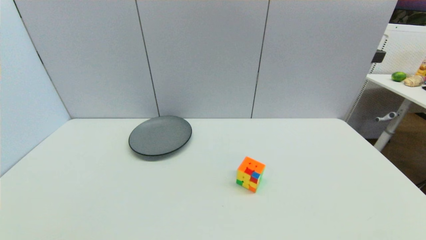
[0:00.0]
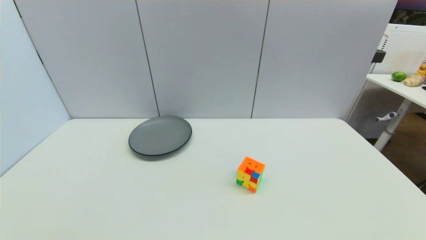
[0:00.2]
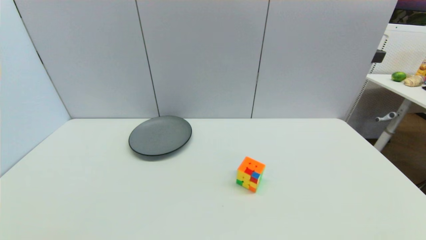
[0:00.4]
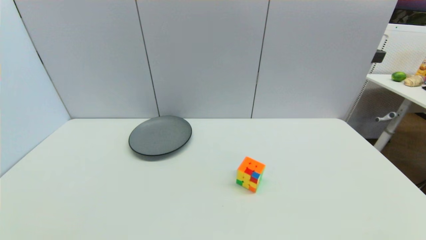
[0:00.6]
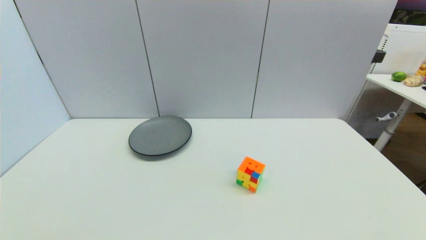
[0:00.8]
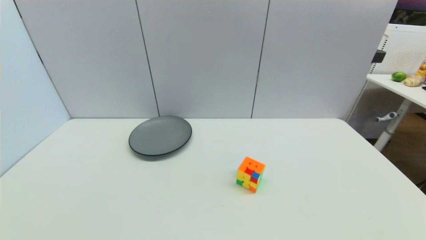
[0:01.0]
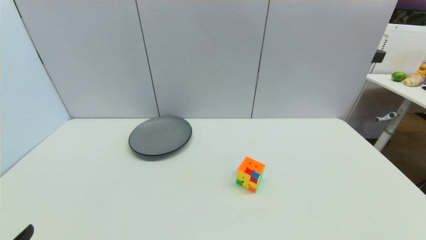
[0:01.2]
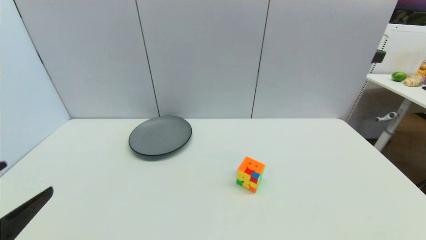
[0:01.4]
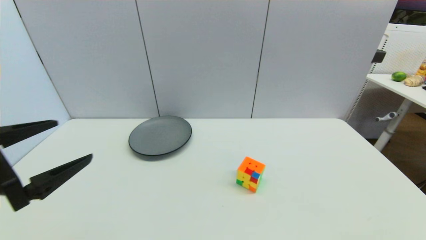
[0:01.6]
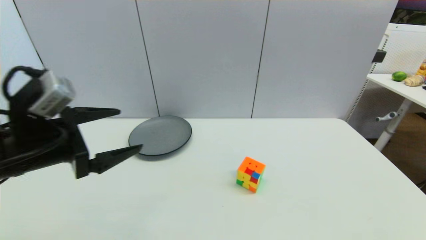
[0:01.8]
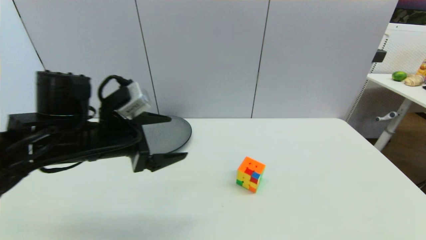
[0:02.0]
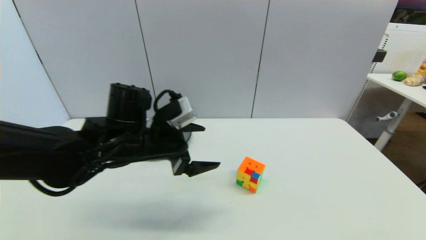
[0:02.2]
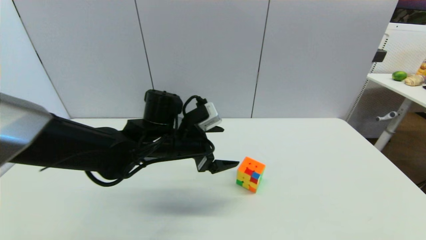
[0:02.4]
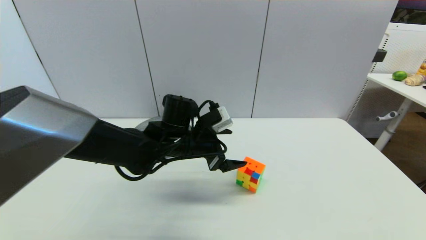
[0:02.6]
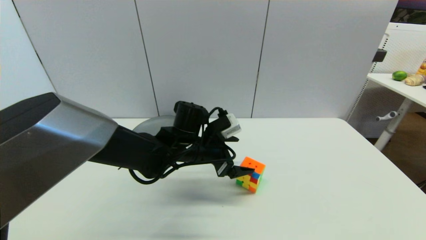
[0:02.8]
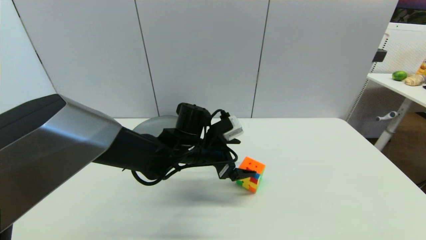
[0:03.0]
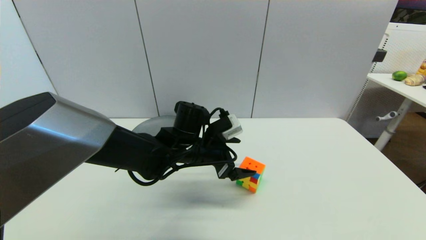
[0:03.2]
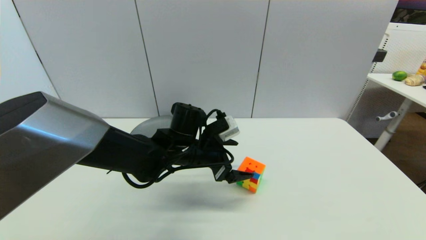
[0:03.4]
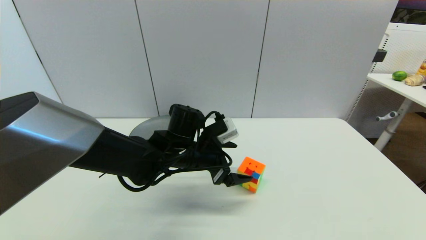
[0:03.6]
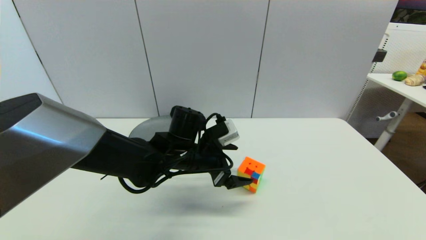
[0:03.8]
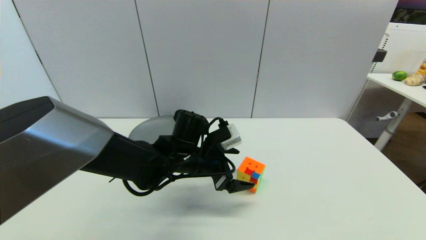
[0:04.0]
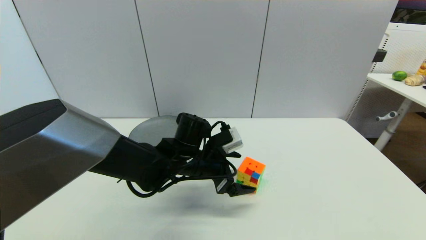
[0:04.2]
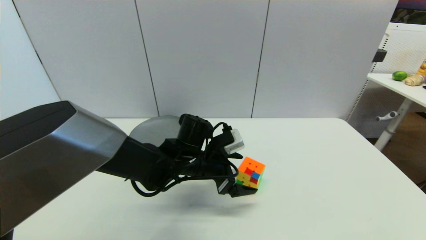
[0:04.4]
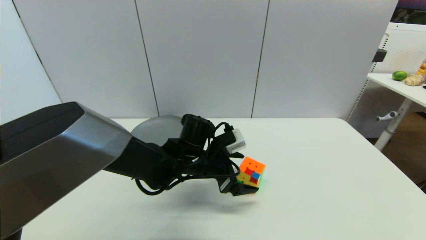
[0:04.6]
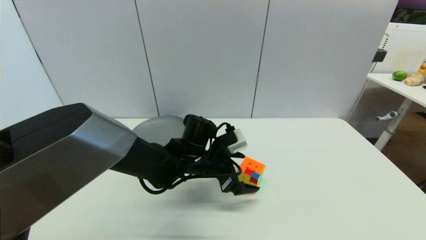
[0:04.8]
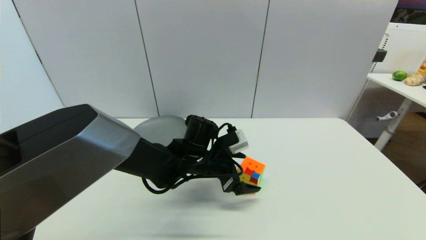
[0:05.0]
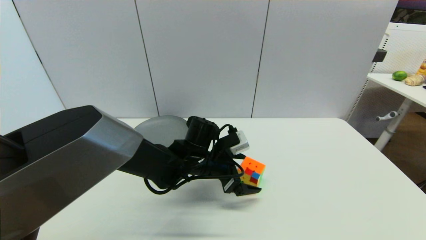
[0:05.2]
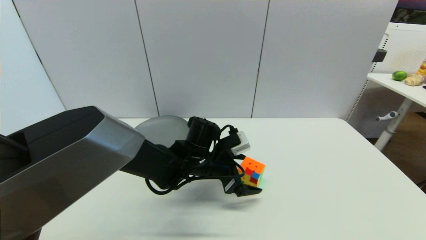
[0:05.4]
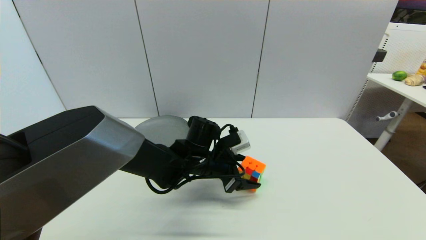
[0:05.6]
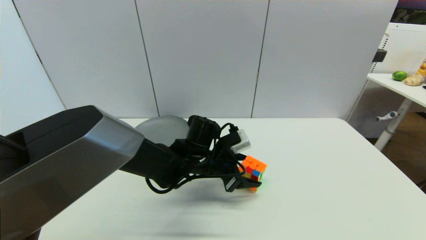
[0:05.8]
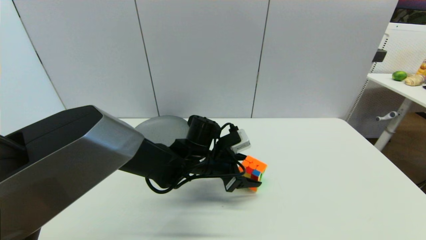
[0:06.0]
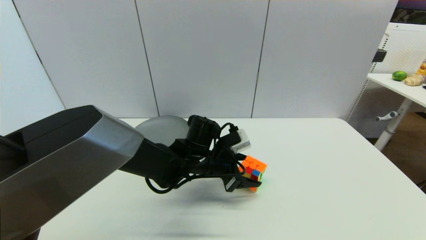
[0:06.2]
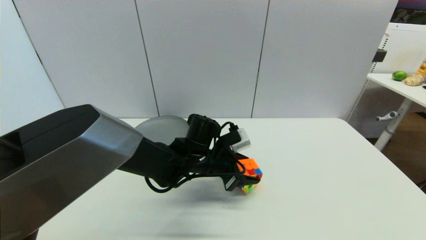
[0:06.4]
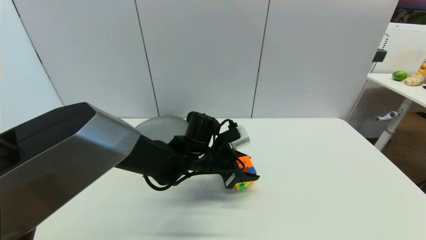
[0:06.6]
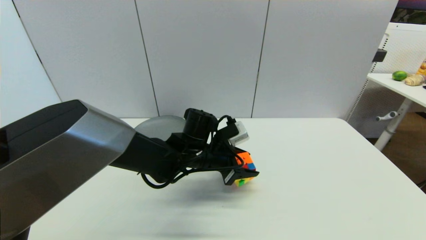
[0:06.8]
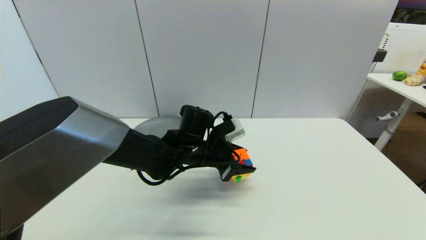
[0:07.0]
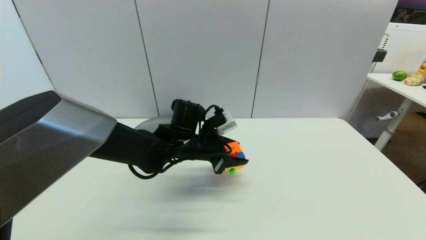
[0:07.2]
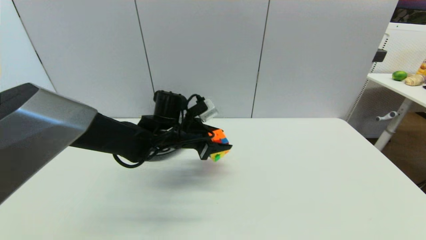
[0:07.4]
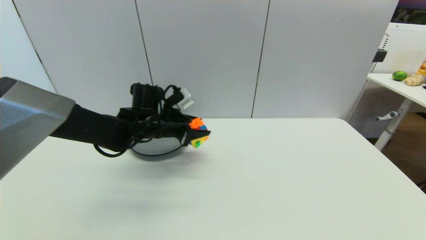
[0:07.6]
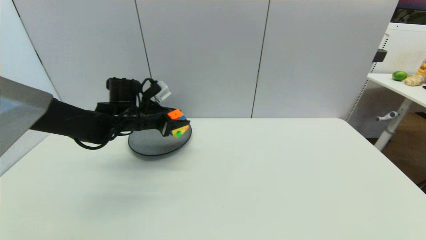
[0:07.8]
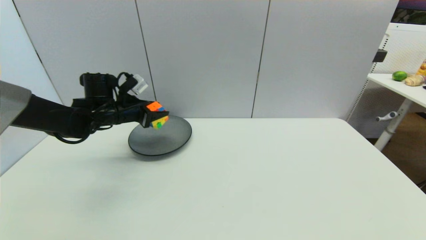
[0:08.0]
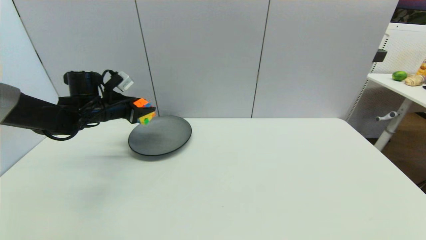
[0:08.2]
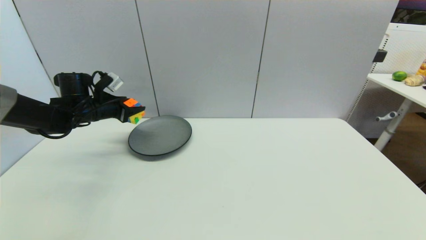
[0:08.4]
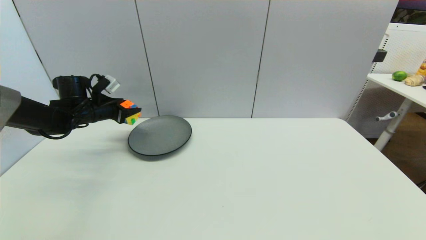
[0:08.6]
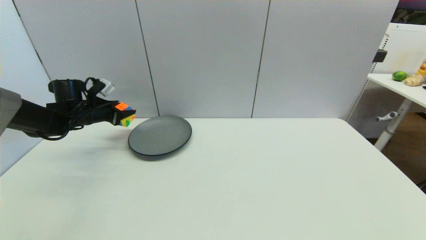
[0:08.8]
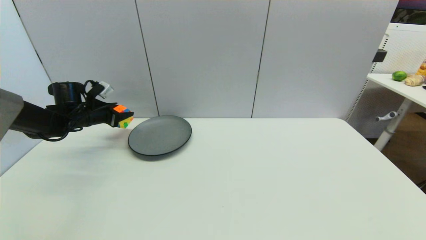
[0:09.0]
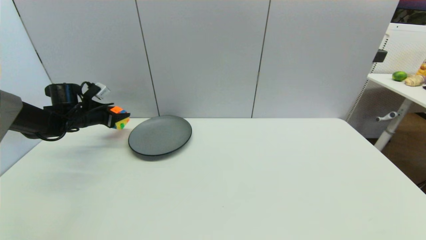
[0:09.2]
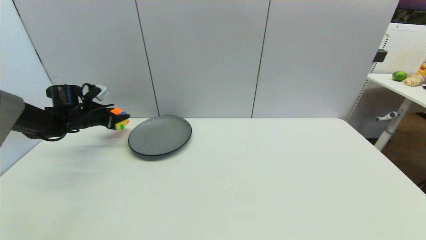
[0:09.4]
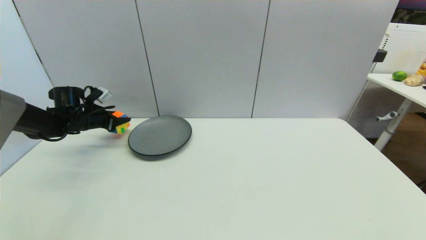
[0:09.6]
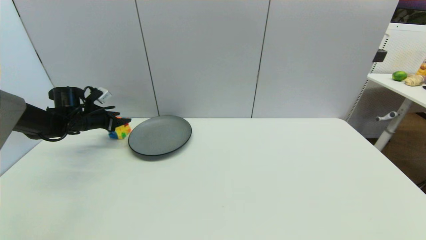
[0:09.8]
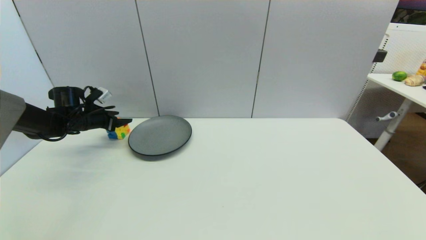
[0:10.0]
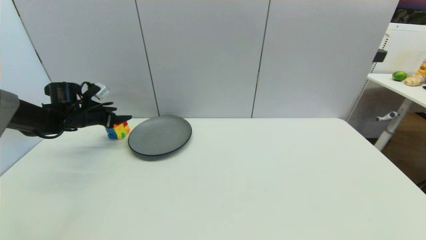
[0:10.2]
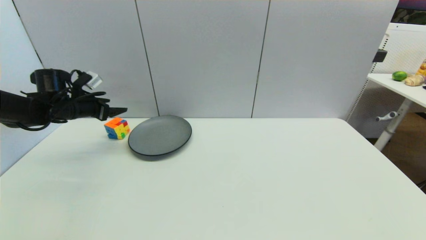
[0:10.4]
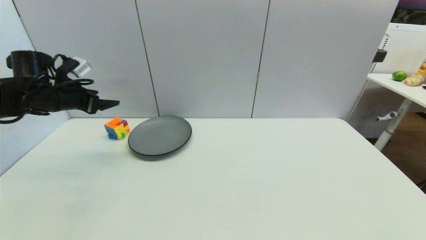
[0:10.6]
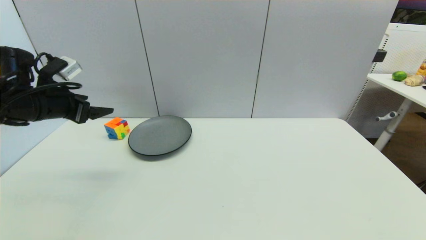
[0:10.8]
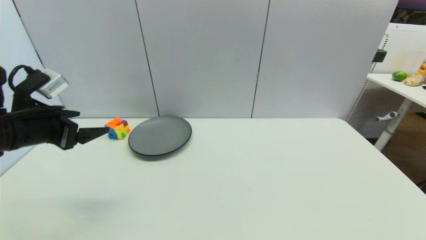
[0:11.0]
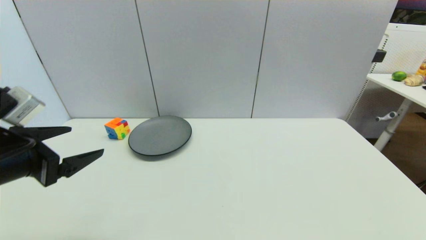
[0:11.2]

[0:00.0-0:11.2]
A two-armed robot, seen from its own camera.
Step, 0:01.2 to 0:06.4: Grasp the magic cube with left gripper.
Step, 0:06.6 to 0:10.4: Place the magic cube on the table with left gripper.
0:00.0 to 0:01.6: The left gripper heads upward and forward, covering roughly 20 cm.
0:01.6 to 0:03.2: The left gripper is displaced to the right, forward and downward by roughly 30 cm.
0:03.2 to 0:04.8: The grippers make only small movements.
0:04.8 to 0:06.4: The left gripper closes up.
0:06.4 to 0:08.0: The left gripper shifts about 25 cm to the left.
0:08.0 to 0:09.6: The left gripper is displaced to the left by about 15 cm.
0:09.6 to 0:11.2: The left gripper is displaced backward by approximately 30 cm, and opens its fingers.

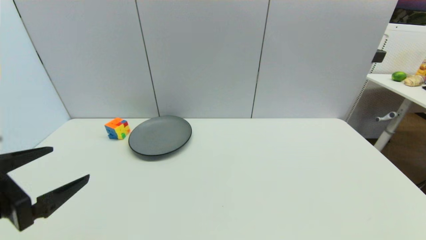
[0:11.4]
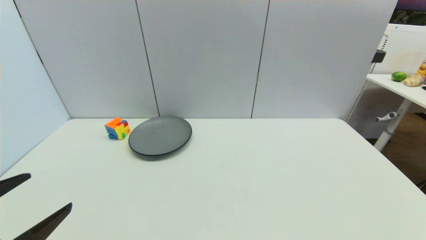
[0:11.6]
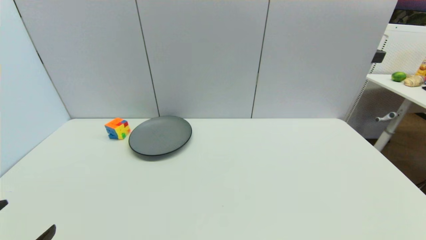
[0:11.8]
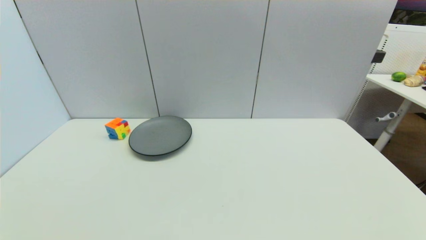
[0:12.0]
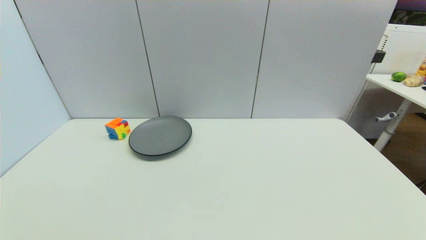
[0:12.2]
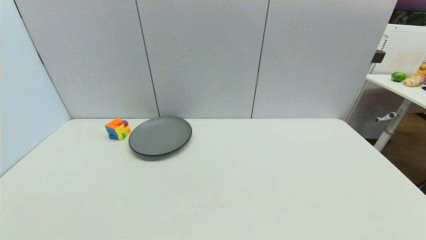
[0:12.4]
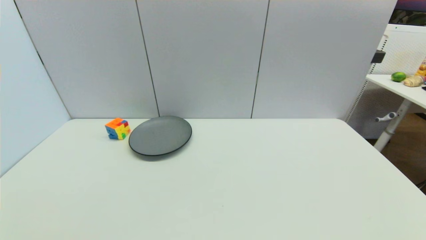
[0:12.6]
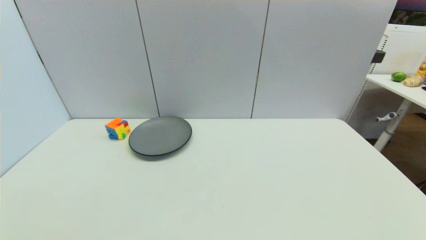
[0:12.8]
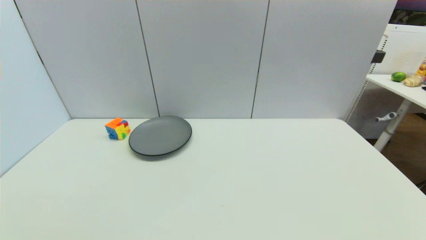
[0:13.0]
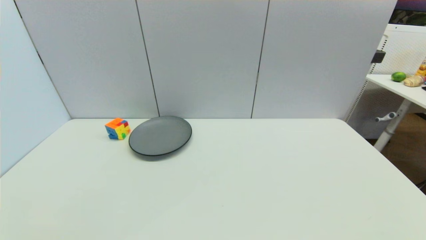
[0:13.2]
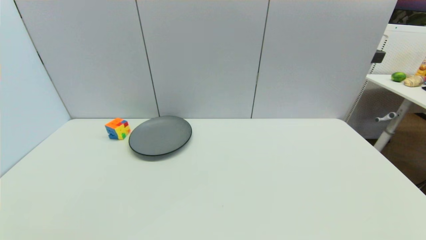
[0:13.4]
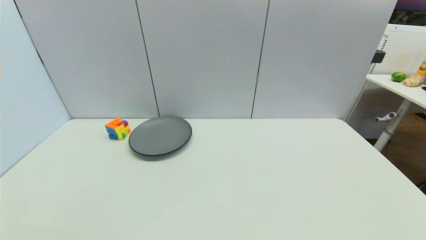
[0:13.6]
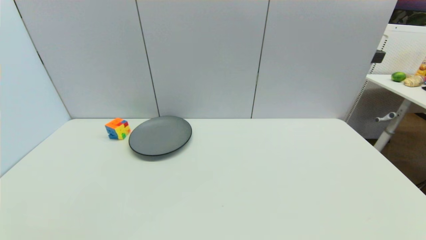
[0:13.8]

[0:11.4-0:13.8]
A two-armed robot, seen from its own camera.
0:11.4 to 0:12.6: The left gripper is displaced downward and backward by roughly 15 cm.
0:12.6 to 0:13.8: Both grippers stay about where they are.
